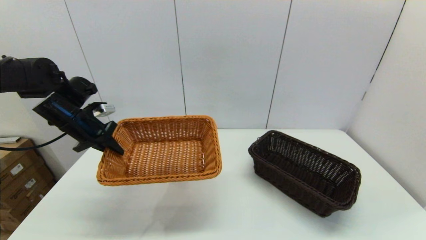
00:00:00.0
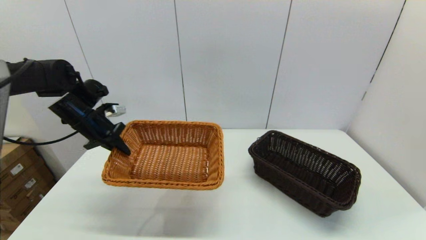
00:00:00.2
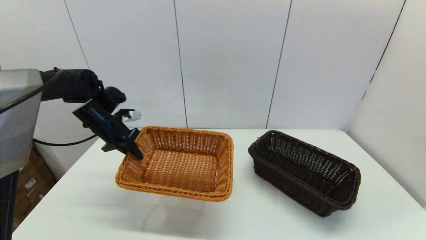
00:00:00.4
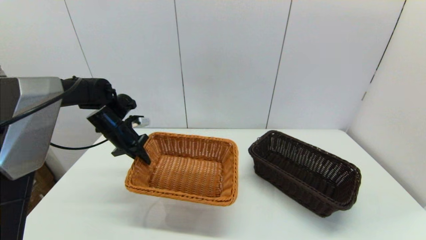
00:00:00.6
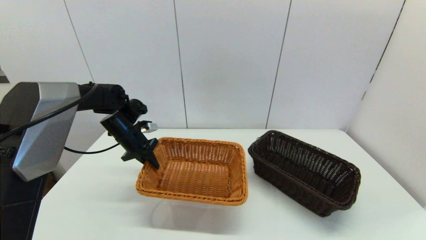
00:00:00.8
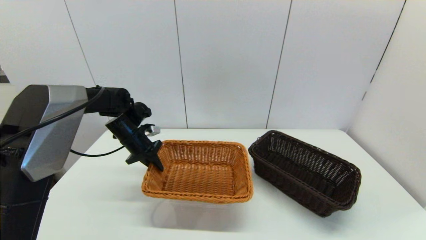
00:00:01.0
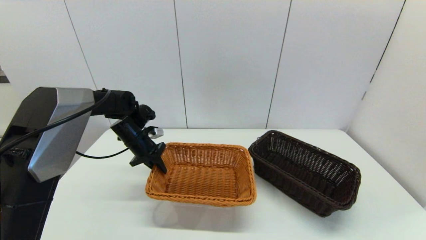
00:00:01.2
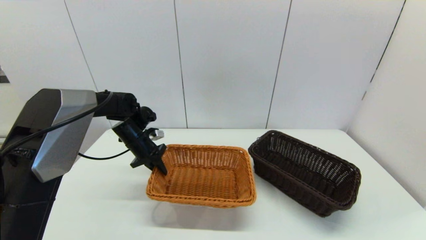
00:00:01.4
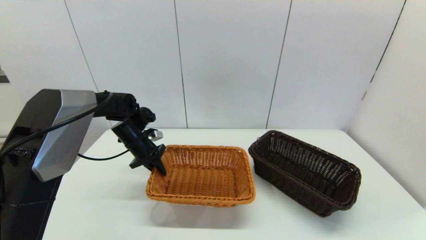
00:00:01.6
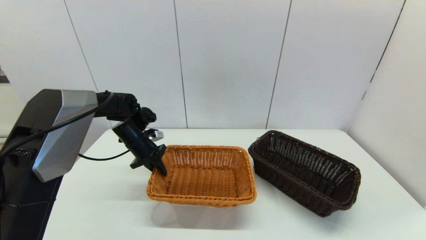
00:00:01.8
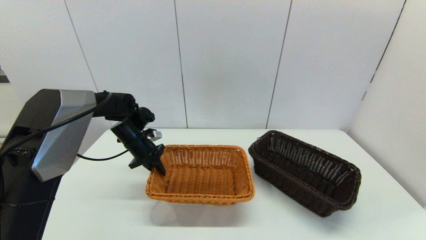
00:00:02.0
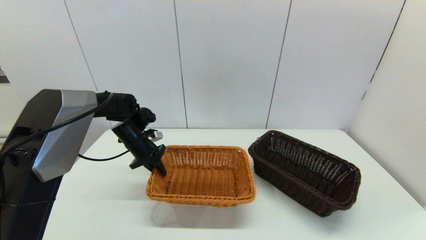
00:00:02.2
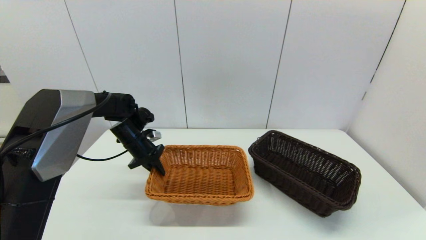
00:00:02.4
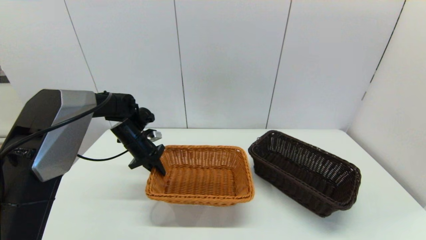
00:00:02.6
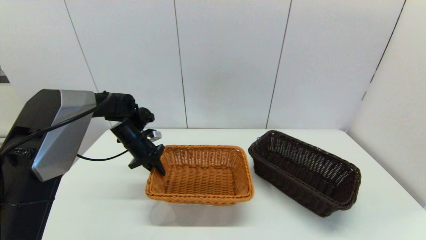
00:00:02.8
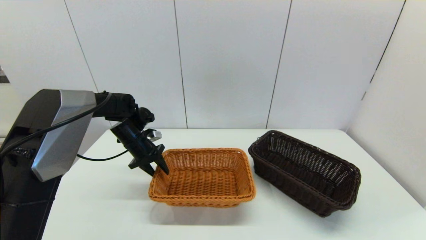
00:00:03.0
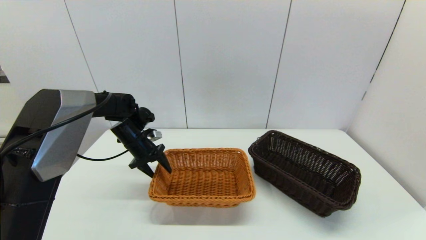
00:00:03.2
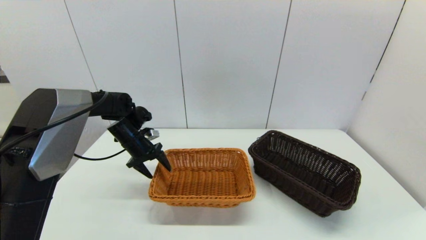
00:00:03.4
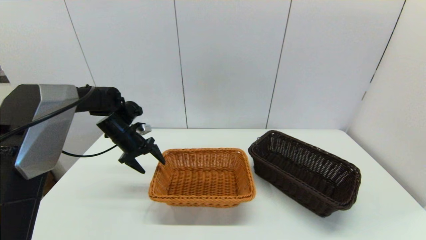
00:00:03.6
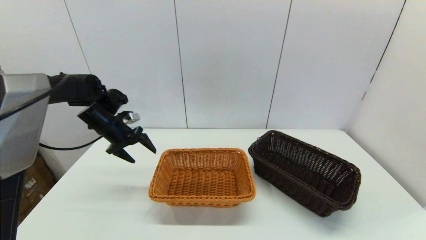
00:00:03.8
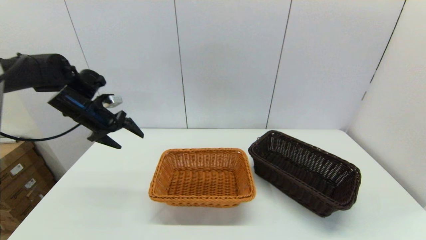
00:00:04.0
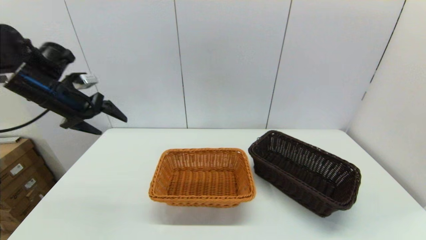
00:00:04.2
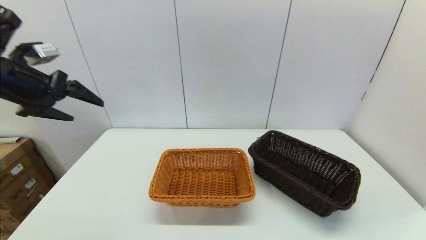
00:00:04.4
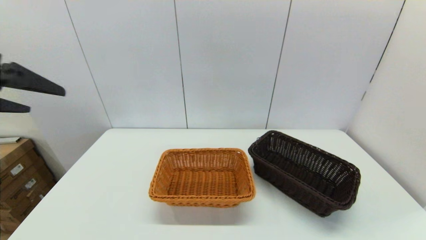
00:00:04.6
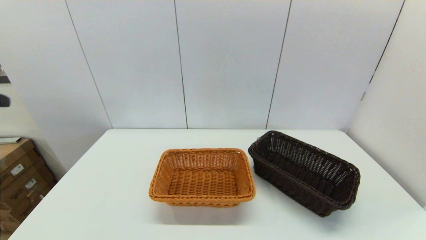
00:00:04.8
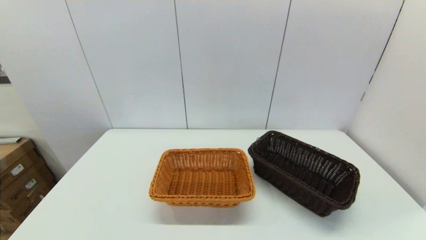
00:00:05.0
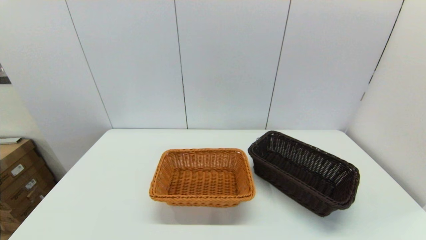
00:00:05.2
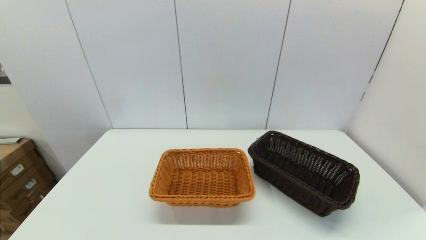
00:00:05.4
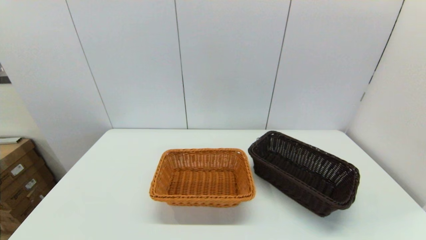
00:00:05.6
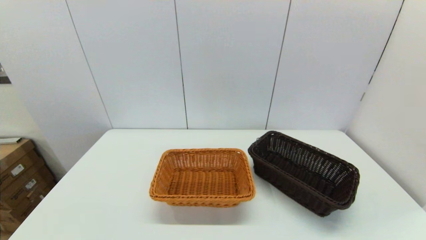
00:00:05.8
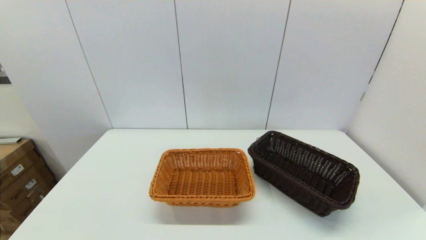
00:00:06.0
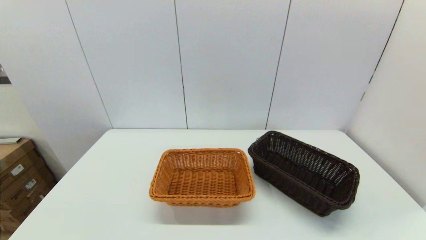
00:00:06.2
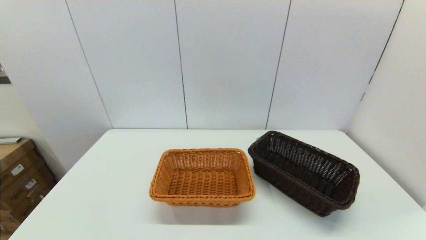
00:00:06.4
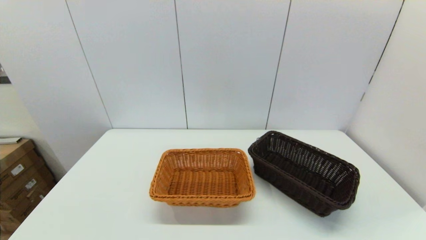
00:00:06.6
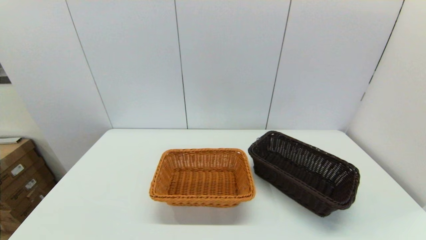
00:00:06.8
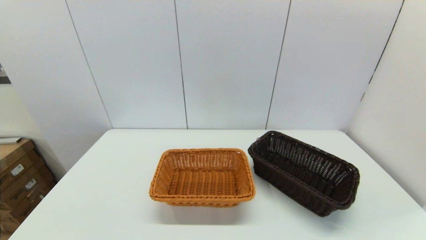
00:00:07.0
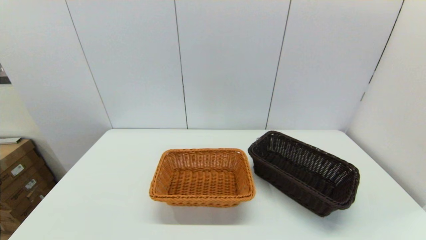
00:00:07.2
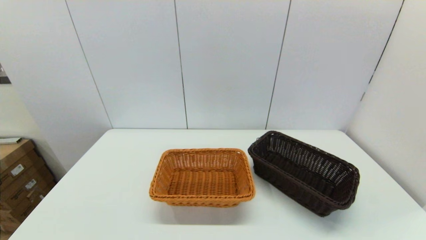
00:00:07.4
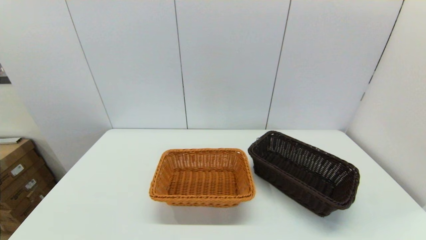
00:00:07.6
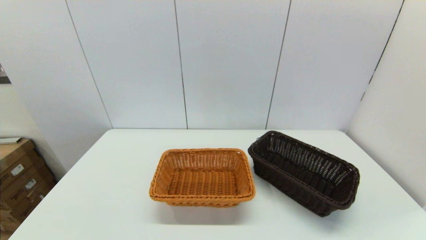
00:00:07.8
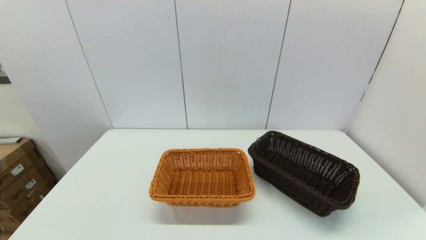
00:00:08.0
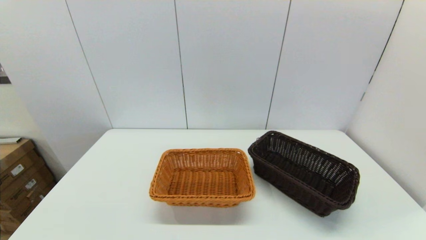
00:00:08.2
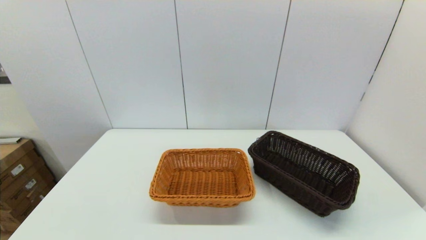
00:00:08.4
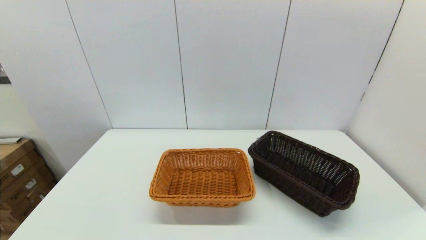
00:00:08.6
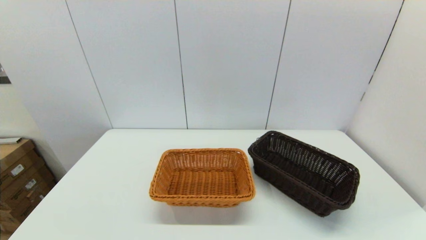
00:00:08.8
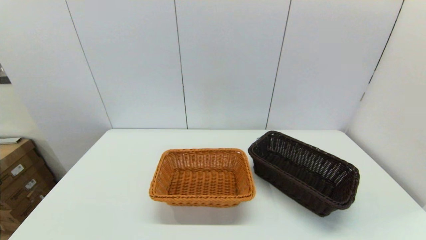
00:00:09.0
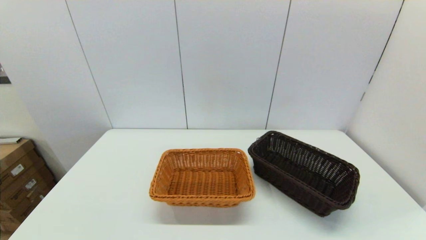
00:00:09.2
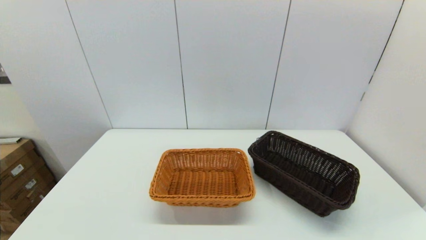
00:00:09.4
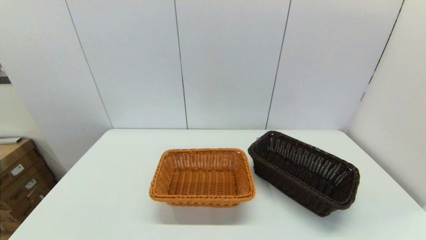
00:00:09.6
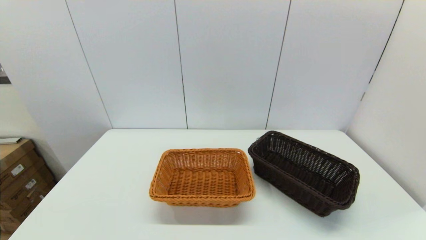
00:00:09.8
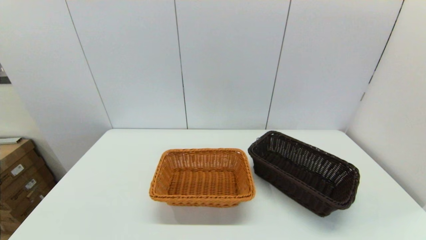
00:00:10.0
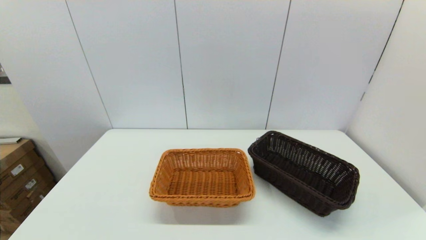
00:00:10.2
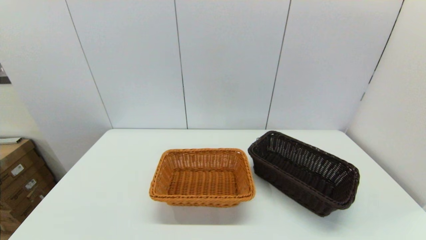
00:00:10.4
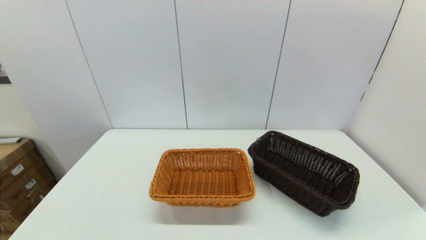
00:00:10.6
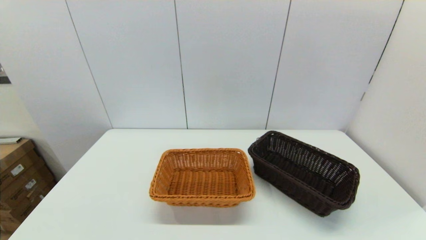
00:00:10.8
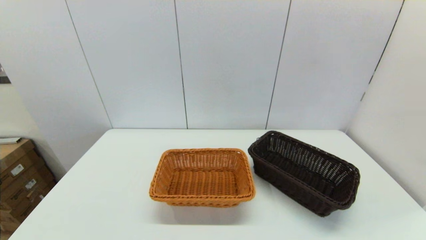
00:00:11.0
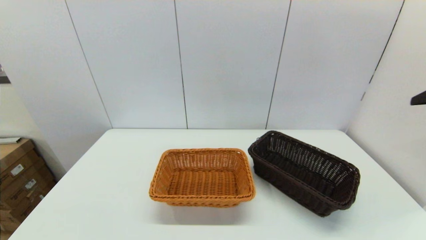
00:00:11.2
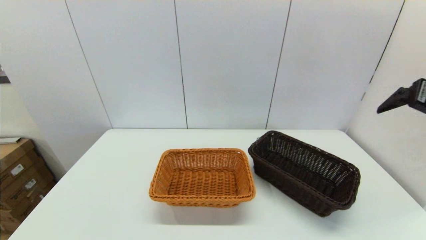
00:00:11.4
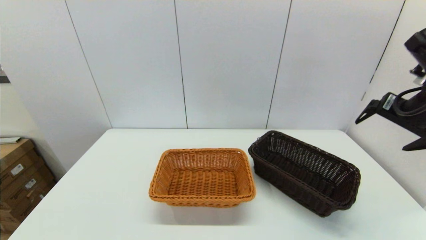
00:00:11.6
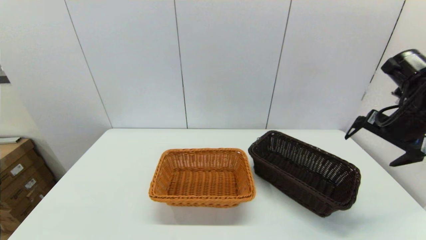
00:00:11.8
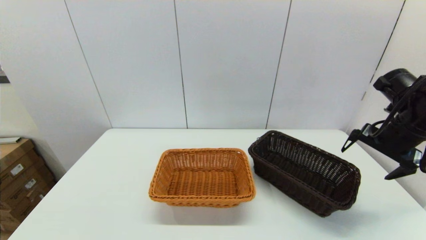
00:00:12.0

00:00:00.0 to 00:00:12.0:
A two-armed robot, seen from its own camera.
Task of the whole recording: stack a basket on top of another basket.
Step, 00:00:00.0 to 00:00:03.6: Place the light basket on the middle of the table with the left gripper.
00:00:00.0 to 00:00:01.6: The left gripper shifts about 15 cm downward, to the right and forward.
00:00:01.6 to 00:00:03.0: The left gripper opens up.
00:00:03.0 to 00:00:04.4: The left gripper shifts about 30 cm upward, backward and to the left, and opens up.
00:00:04.4 to 00:00:06.0: The left gripper is displaced backward and downward by roughly 35 cm.
00:00:07.6 to 00:00:09.0: Both grippers stay about where they are.
00:00:10.4 to 00:00:12.0: The right gripper heads forward, covering roughly 35 cm.

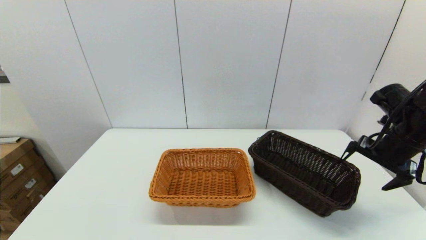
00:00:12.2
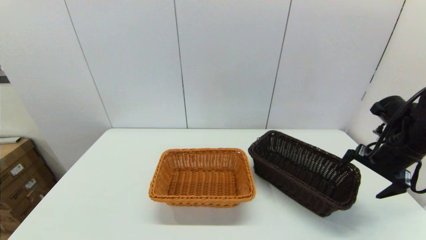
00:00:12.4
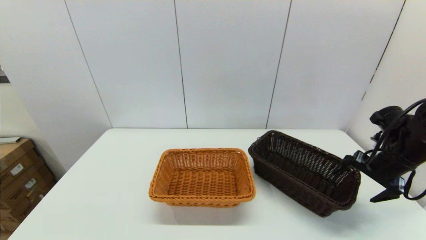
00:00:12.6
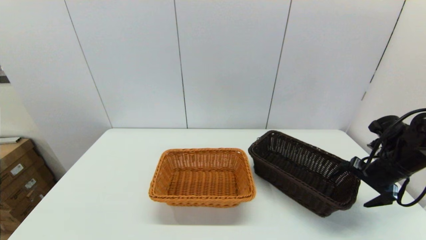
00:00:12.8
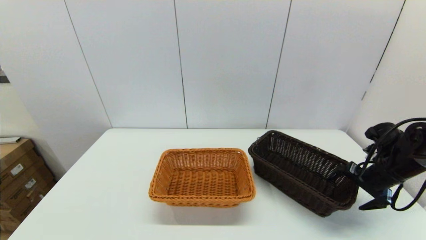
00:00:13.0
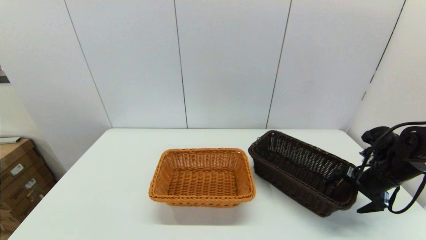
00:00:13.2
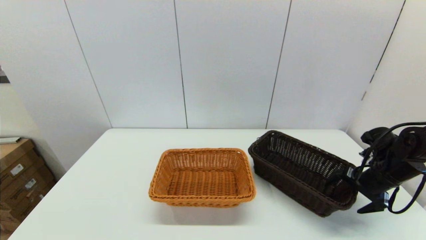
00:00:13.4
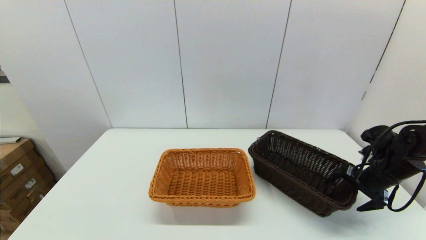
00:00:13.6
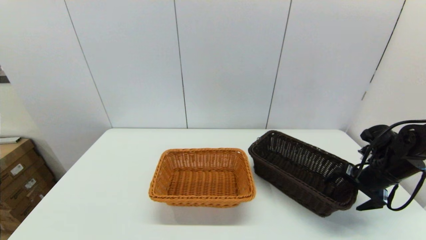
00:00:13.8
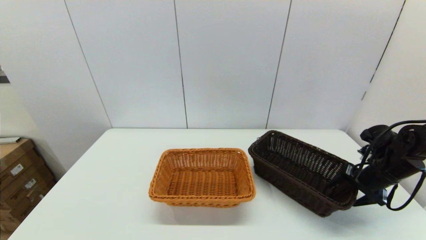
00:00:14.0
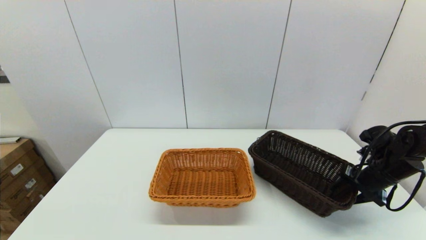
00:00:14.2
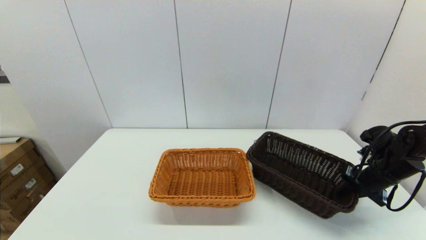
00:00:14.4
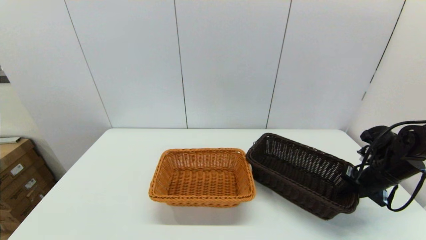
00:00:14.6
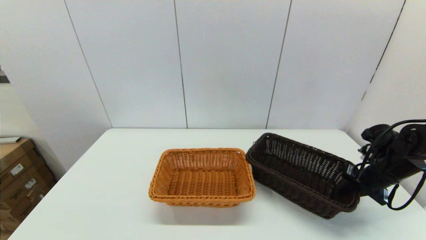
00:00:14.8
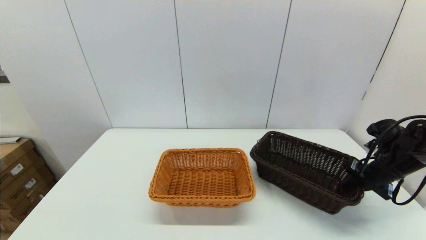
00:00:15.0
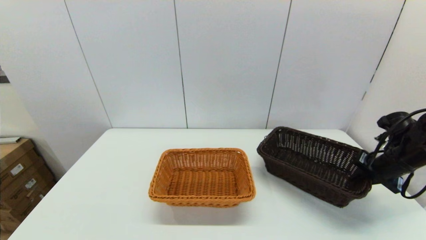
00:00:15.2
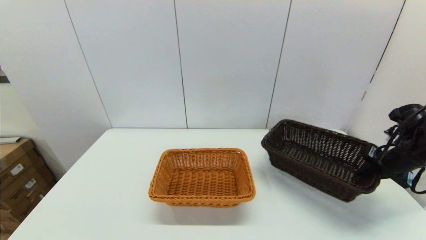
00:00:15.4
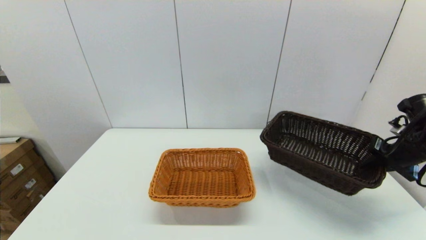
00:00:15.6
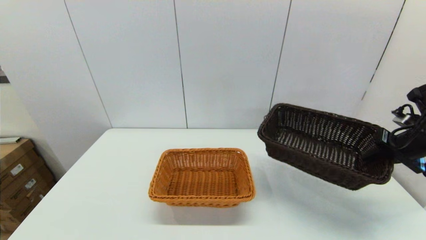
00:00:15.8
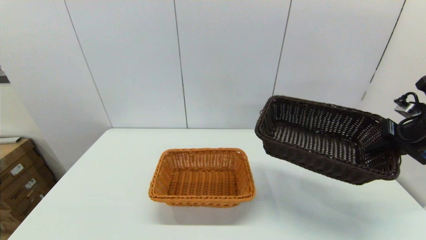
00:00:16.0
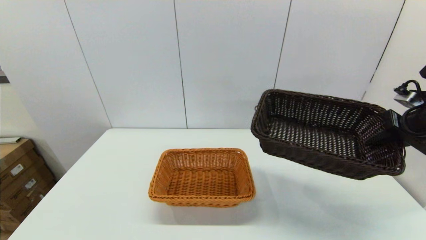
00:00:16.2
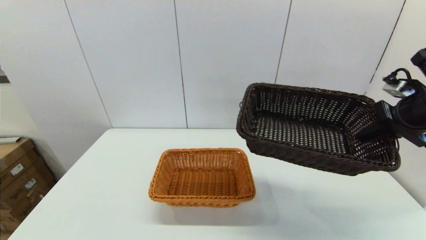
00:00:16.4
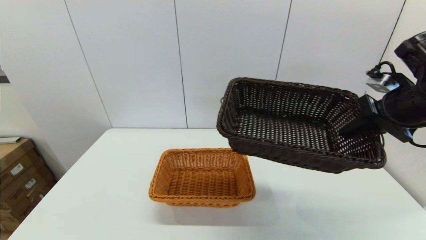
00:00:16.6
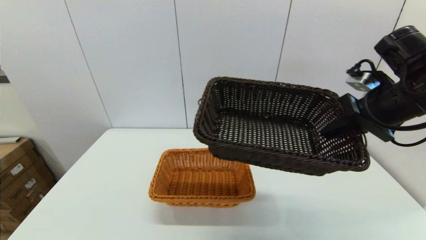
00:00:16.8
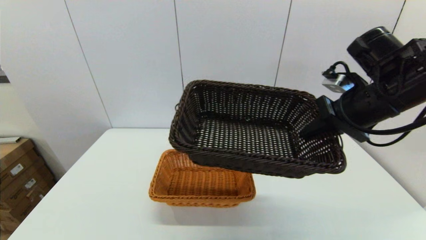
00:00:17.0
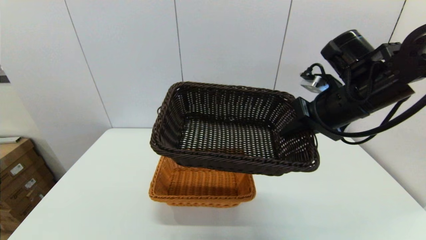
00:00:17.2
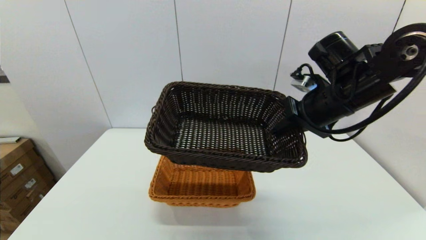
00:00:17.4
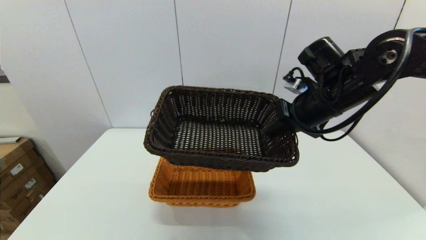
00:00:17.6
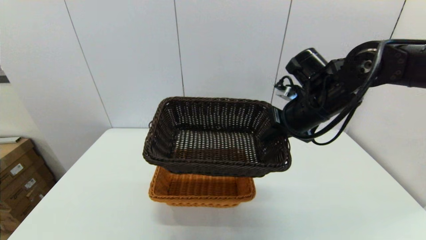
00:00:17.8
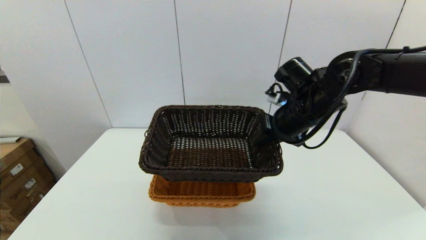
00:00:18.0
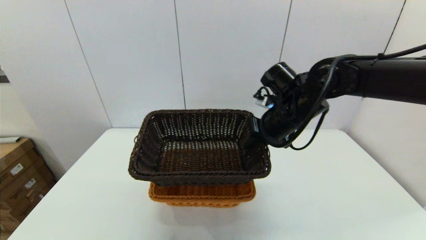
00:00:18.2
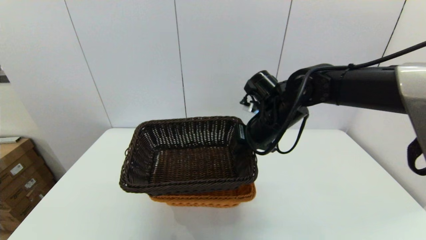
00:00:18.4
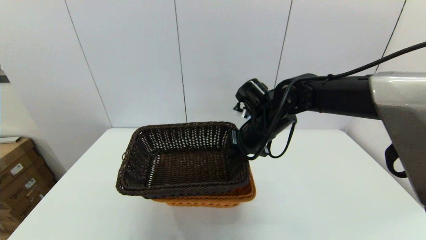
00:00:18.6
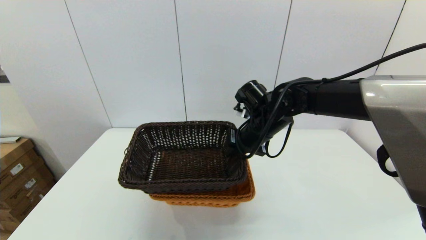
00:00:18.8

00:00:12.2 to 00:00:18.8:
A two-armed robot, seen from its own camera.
Task of the whole recording: stack a basket on top of another basket.
Step, 00:00:12.2 to 00:00:14.4: Grasp the dark basket with the right gripper.
00:00:12.2 to 00:00:13.8: The right gripper shifts about 10 cm downward.
00:00:13.8 to 00:00:15.4: The right gripper moves upward, some 5 cm, and closes.
00:00:15.4 to 00:00:17.2: The right gripper heads to the left and upward, covering some 25 cm.
00:00:17.2 to 00:00:18.8: The right gripper travels to the left, downward and forward by about 15 cm.
